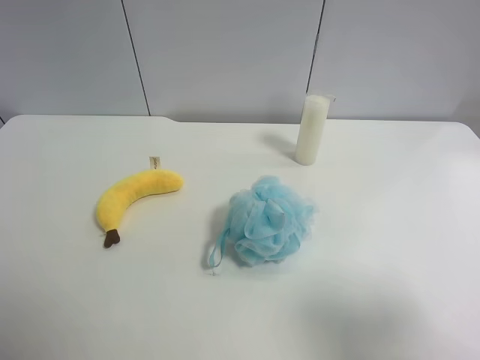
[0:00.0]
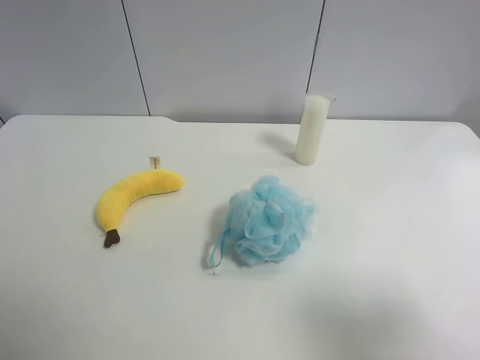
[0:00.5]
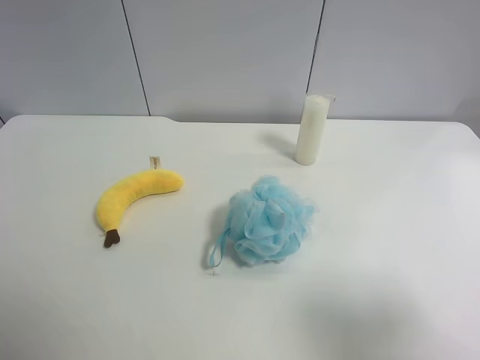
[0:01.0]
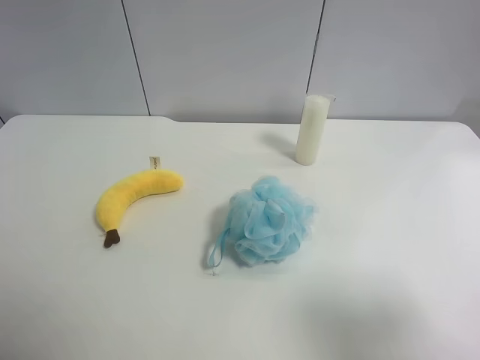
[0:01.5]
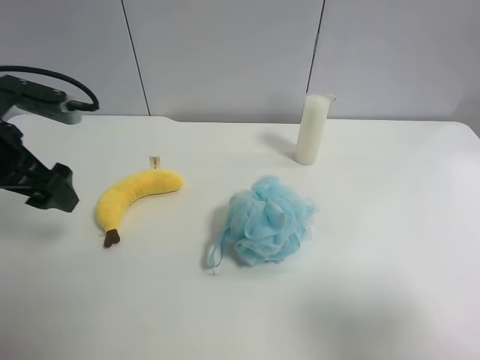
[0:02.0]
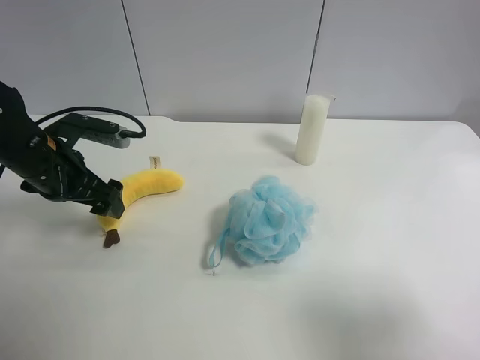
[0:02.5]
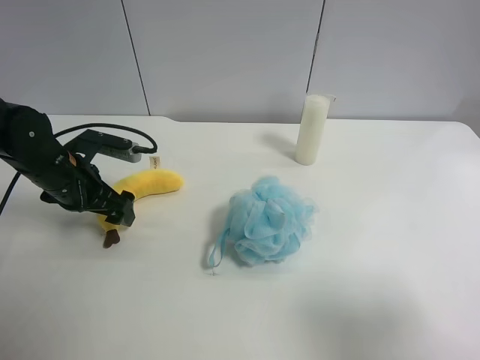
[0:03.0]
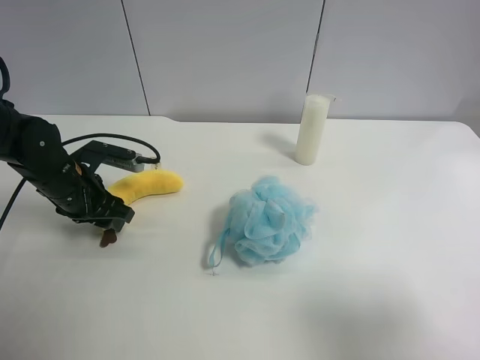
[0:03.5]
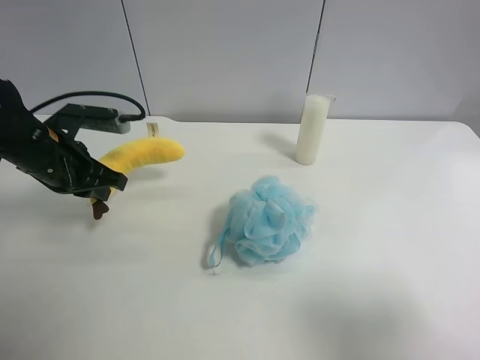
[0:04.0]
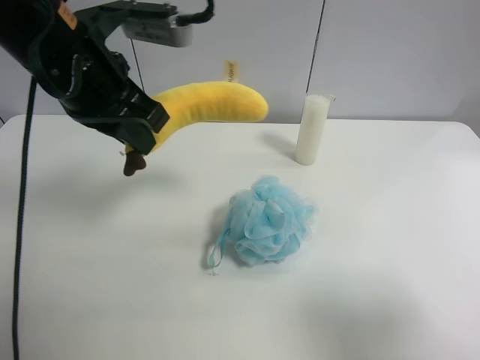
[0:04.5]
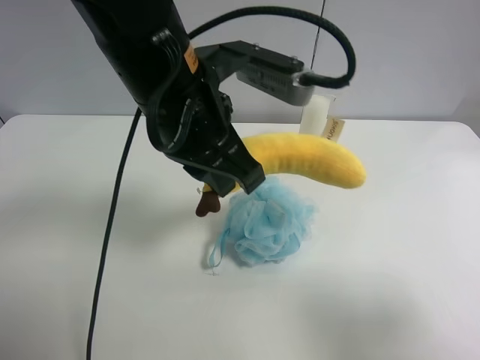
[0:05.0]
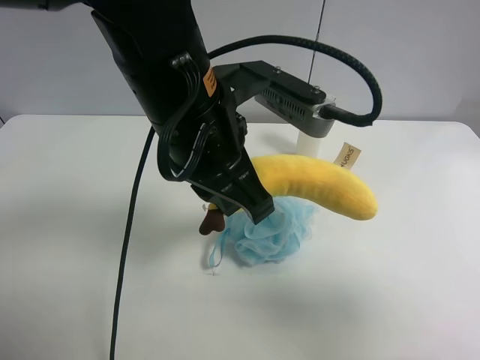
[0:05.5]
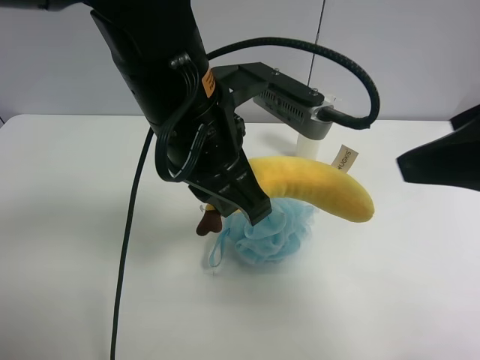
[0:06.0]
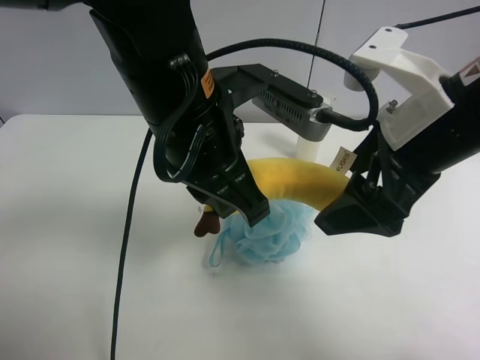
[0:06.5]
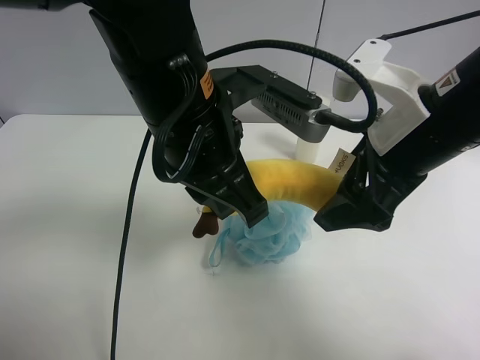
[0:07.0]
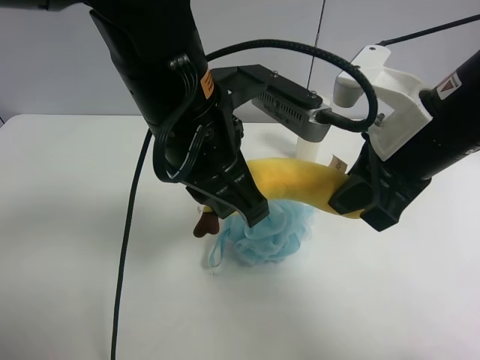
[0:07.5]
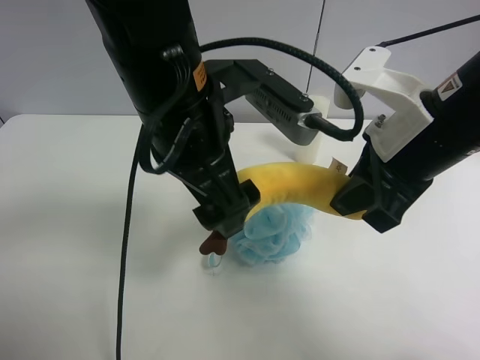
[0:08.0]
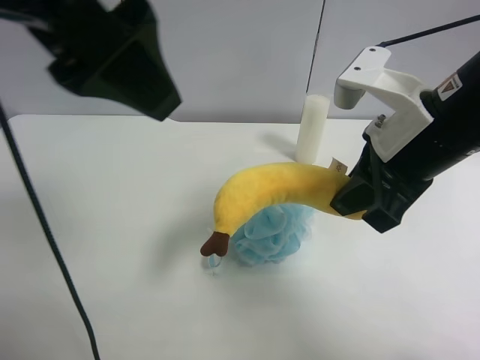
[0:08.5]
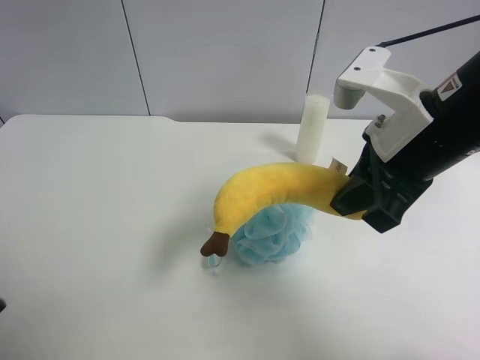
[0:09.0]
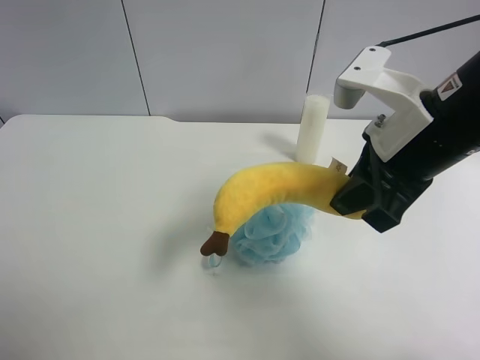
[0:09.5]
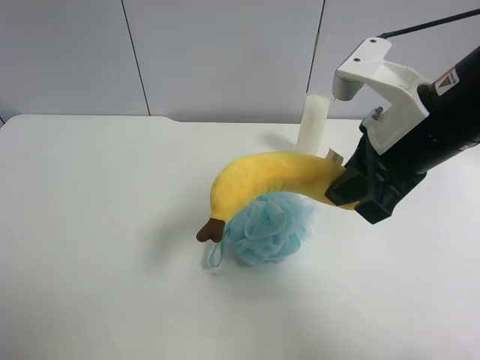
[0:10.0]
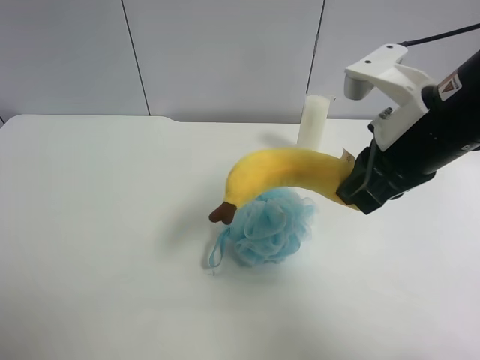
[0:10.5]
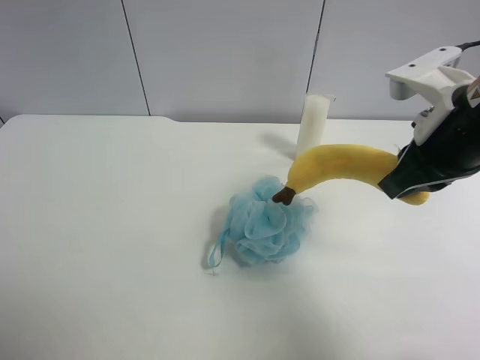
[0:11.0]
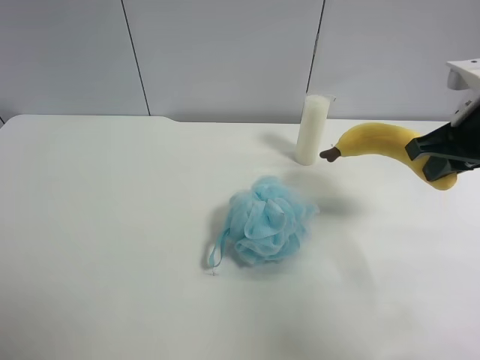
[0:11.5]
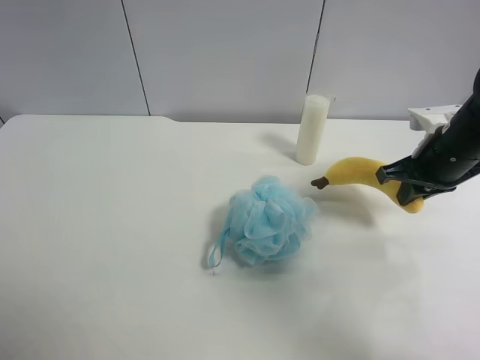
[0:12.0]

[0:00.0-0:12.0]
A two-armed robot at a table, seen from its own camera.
Task of the whole recording: use the left gripper to pick up the item and transfer it from the left gripper to the right gripper.
0:00.0 to 0:02.0: The left gripper goes approximately 25 cm forward.
0:02.0 to 0:04.0: The left gripper closes.
0:04.0 to 0:06.0: The right gripper goes some 15 cm forward, to the left and upward; the left gripper goes roughly 25 cm to the right and upward.
0:06.0 to 0:08.0: The left gripper opens its fingers. The right gripper moves downward, to the left and forward, some 10 cm, and closes.
0:08.0 to 0:10.0: The left gripper is displaced to the left and backward by some 35 cm.
0:10.0 to 0:12.0: The right gripper moves to the right, downward and forward, approximately 20 cm.

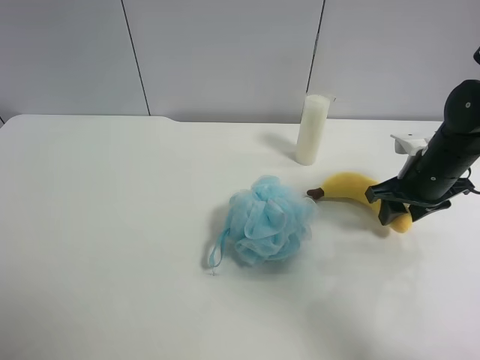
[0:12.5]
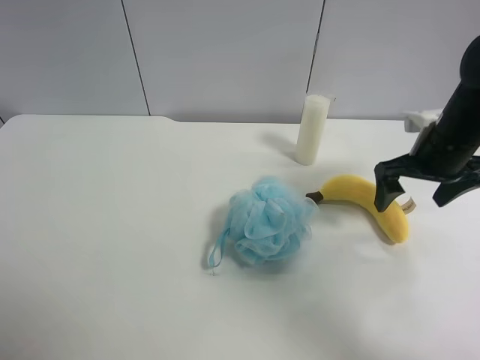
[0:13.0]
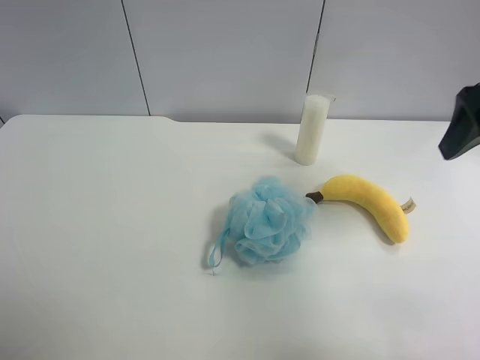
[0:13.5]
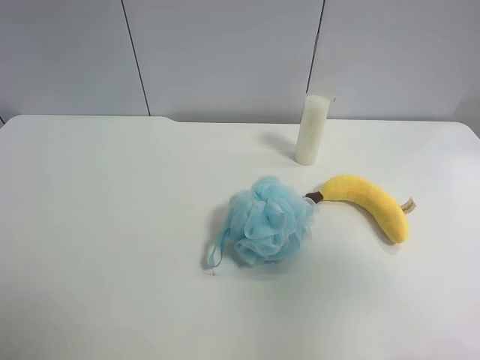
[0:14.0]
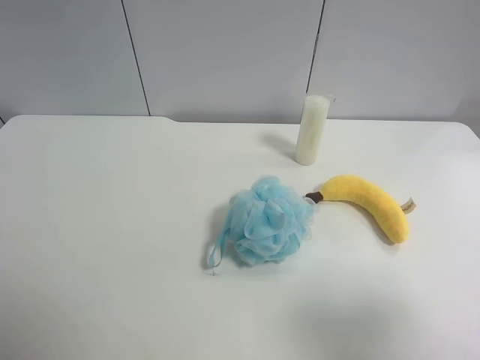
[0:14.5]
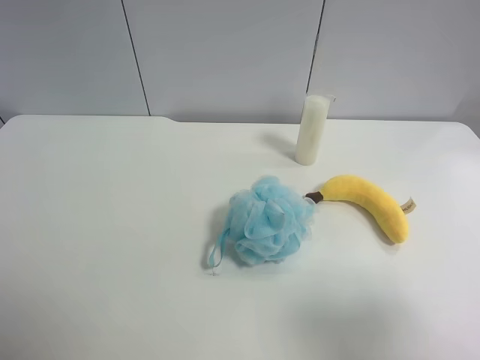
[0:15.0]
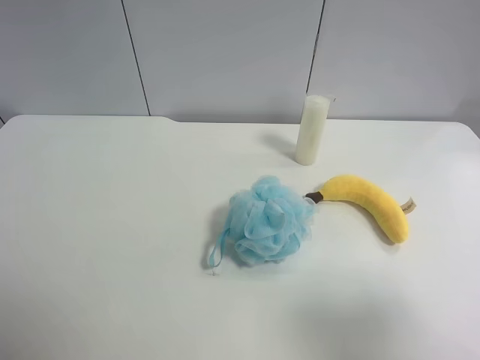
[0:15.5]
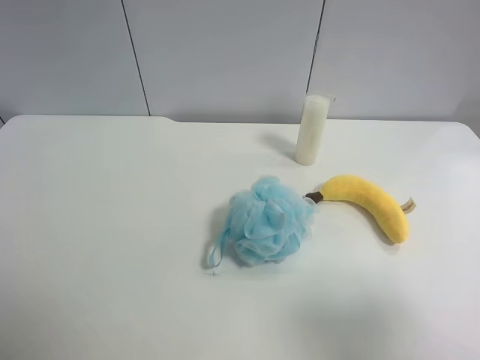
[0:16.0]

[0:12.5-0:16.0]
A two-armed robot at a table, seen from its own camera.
Task of the whole recording: use the left gripper to pick up the item and transfer it from the left gripper to the right gripper.
0:12.5 to 0:14.5: The right gripper shifts about 35 cm backward and upward.
